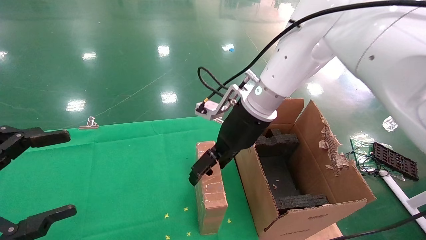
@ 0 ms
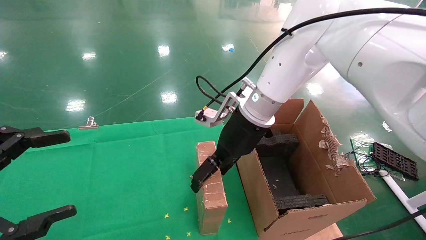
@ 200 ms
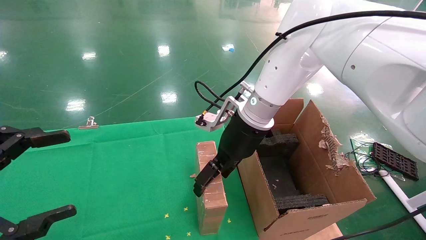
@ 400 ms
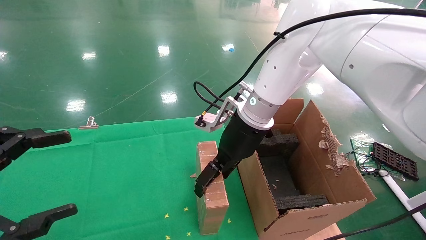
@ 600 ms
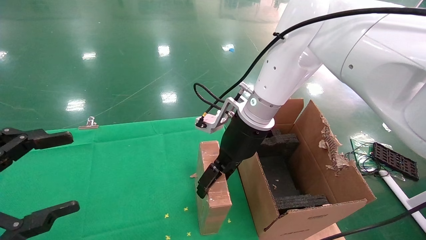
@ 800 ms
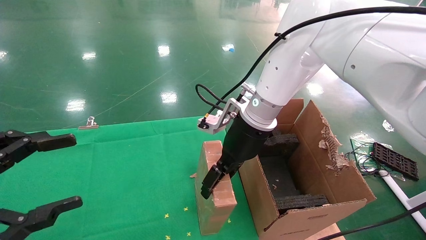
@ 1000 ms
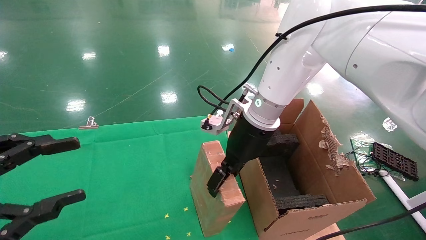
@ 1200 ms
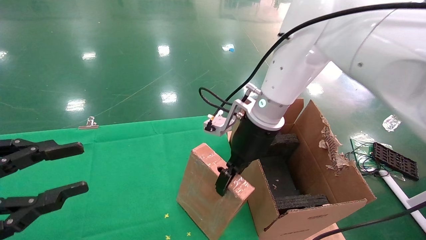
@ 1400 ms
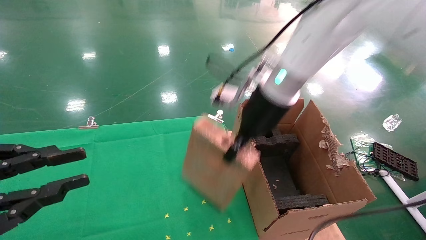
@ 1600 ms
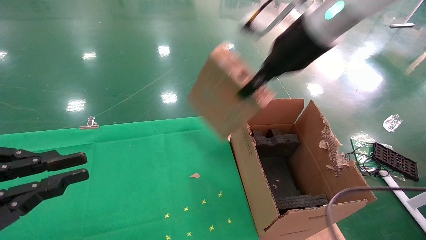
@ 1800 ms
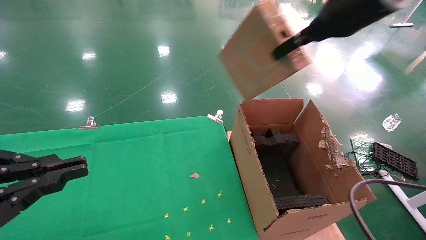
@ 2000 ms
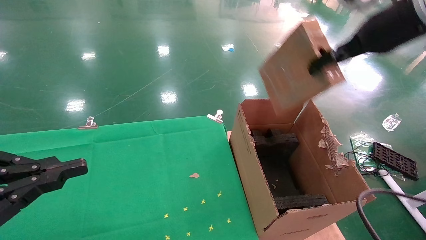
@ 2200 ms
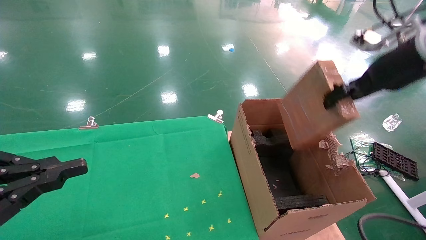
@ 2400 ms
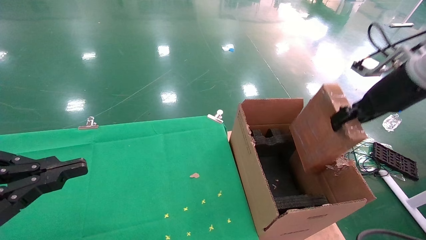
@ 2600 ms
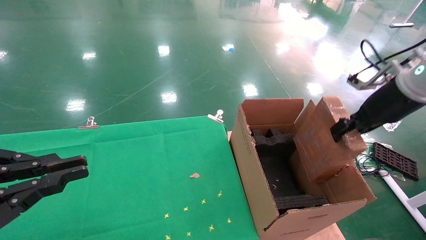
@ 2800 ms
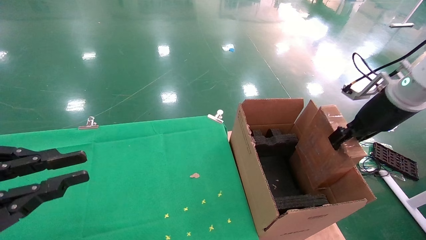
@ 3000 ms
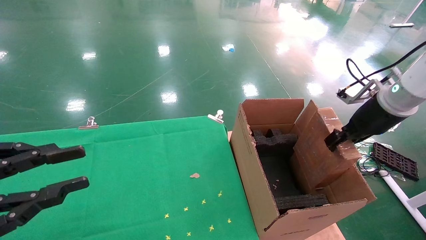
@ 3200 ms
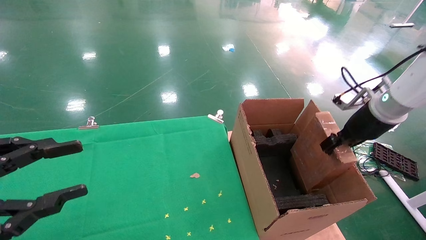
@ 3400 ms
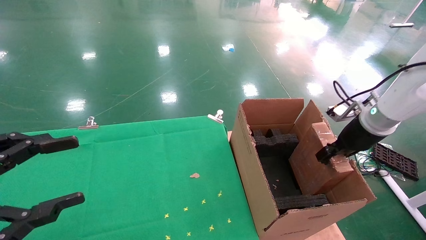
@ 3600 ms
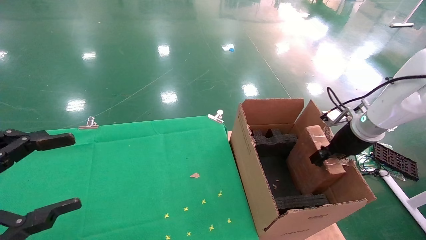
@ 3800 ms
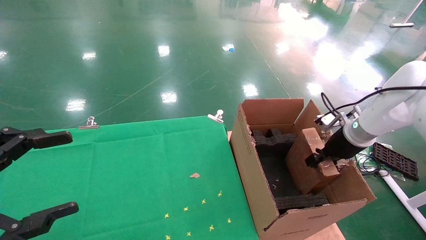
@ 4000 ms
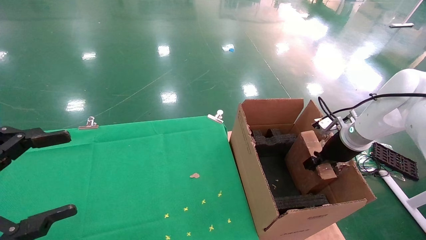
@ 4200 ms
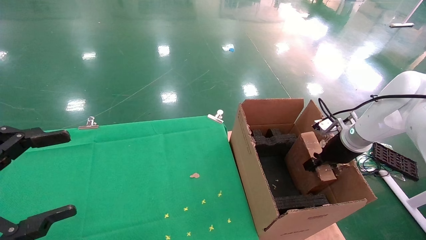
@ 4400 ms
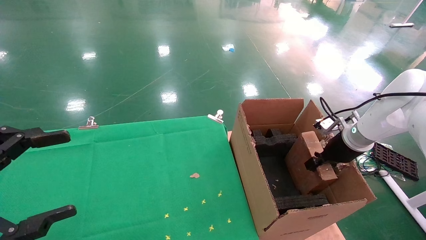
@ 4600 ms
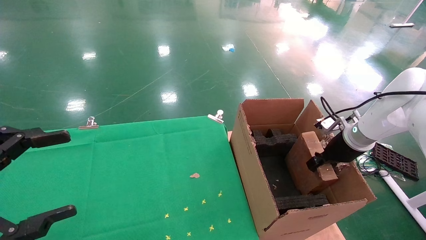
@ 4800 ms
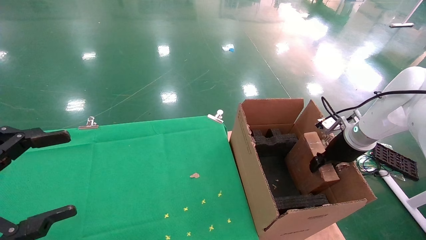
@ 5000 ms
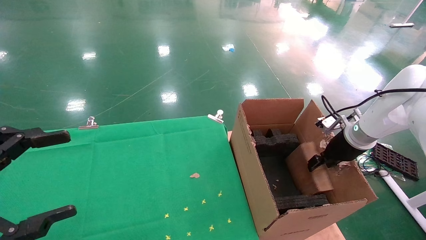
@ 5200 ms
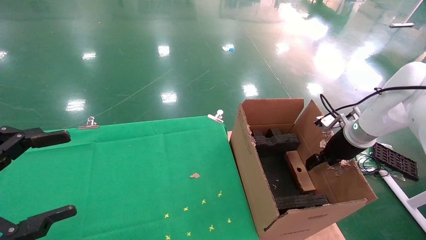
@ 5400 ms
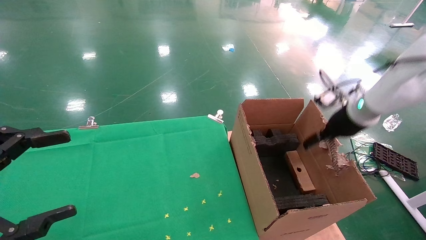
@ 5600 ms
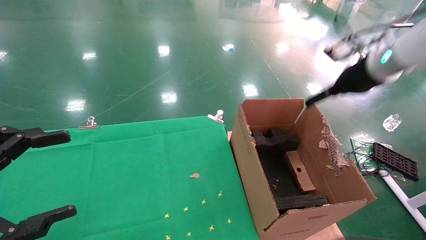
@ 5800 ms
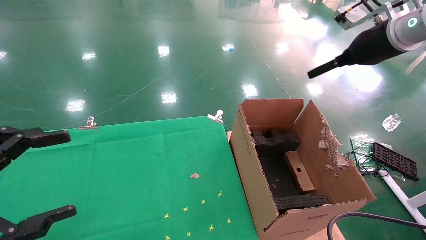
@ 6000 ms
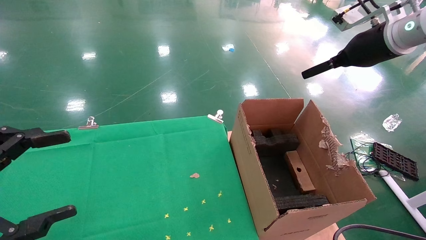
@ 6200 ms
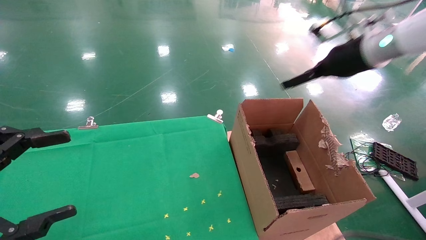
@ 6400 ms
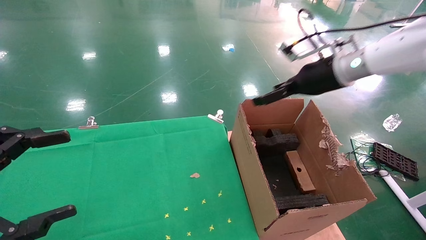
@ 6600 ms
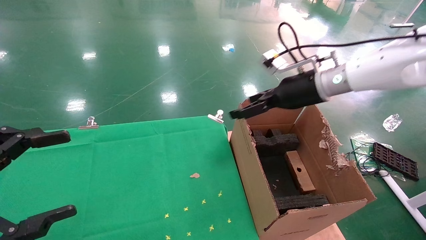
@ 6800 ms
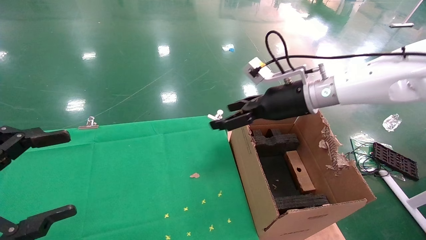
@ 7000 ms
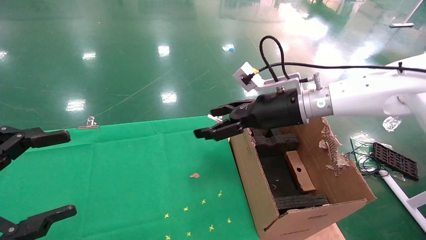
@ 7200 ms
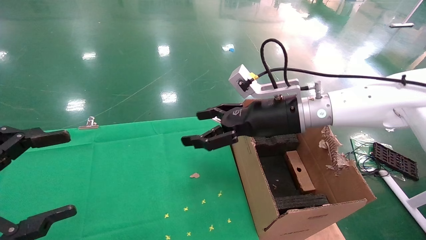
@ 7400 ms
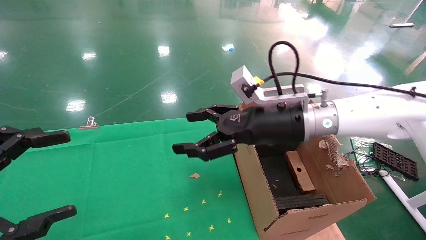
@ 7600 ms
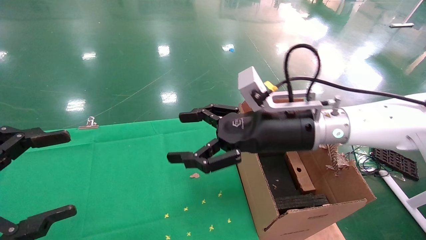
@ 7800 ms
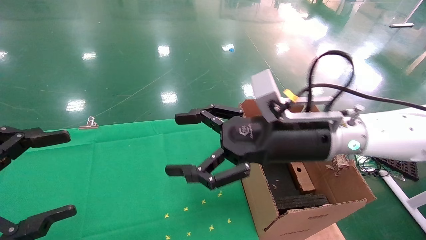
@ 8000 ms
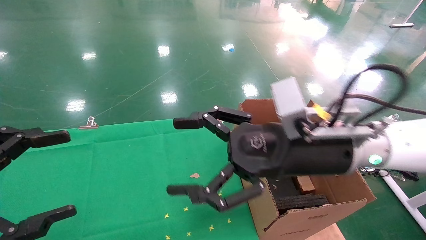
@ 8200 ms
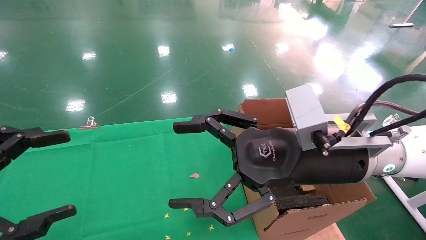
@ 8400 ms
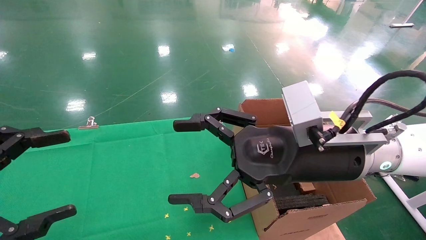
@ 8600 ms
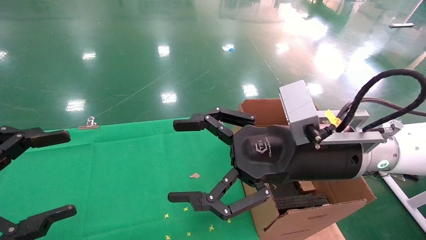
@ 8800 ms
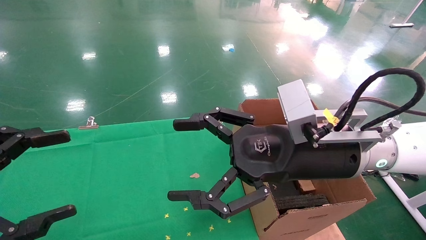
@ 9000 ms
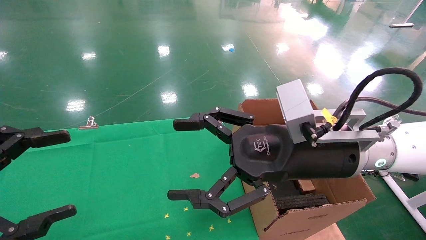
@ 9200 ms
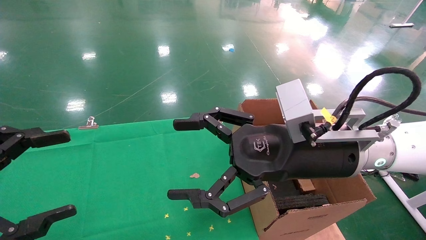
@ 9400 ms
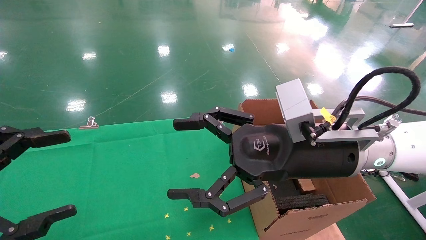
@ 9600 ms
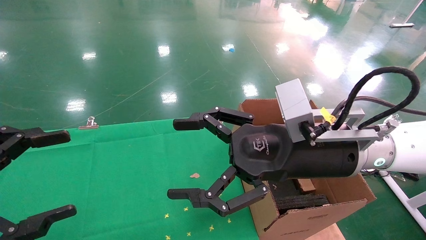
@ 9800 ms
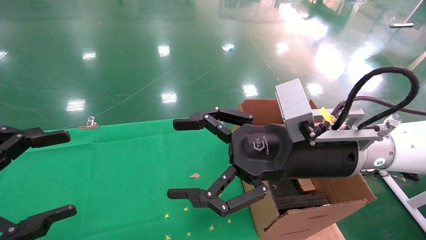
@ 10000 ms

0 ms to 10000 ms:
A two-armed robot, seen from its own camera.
Task of the whole recording: using a robotic arm to pick up a cardboard box and palace it the carton.
Step, 1400 ms to 5400 ms: Place the mouse and the power cord paper box into the container.
0 ms to 1400 ms: The right gripper closes its fingers. The left gripper closes its fingers.
1400 ms to 2800 ms: The left gripper closes its fingers. Meanwhile the right gripper moves to the right, about 25 cm.
2800 ms to 4200 ms: The left gripper opens up, while the right gripper moves downward and forward, approximately 15 cm.
4200 ms to 5800 ms: The right gripper shifts some 15 cm upward, and opens.
5800 ms to 7200 ms: The right gripper travels to the left by some 20 cm.
7200 ms to 8600 ms: The right gripper heads backward, covering approximately 15 cm.
8600 ms to 10000 ms: Both grippers stay about where they are.

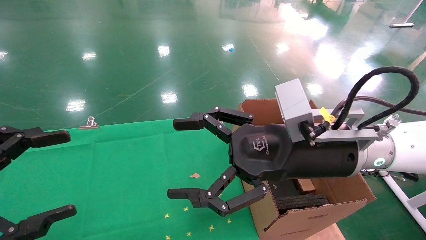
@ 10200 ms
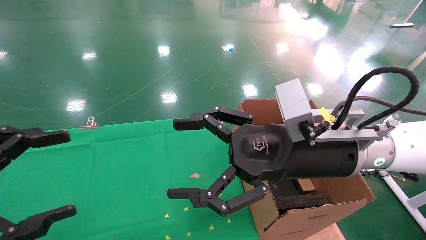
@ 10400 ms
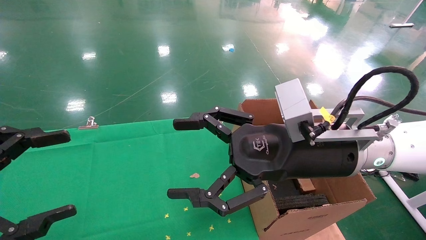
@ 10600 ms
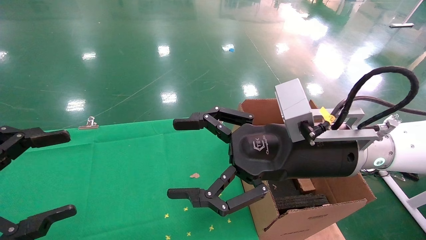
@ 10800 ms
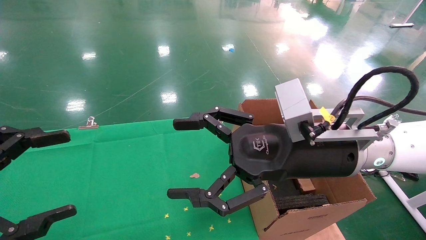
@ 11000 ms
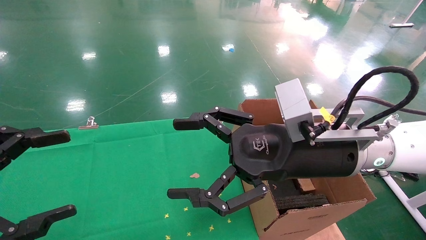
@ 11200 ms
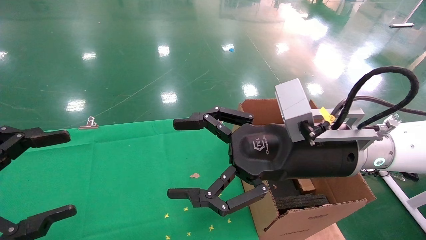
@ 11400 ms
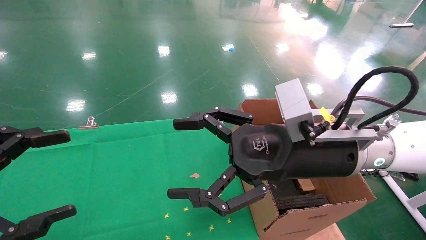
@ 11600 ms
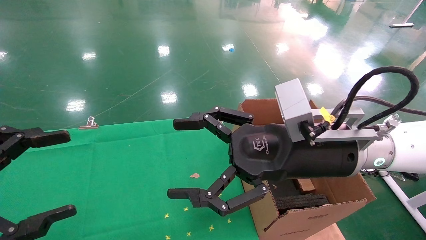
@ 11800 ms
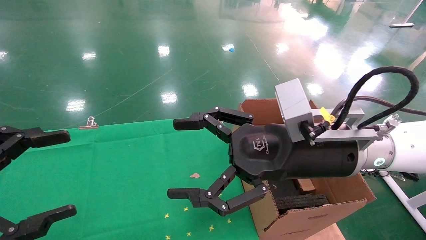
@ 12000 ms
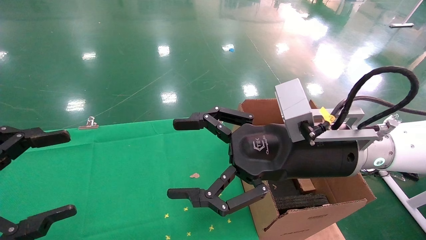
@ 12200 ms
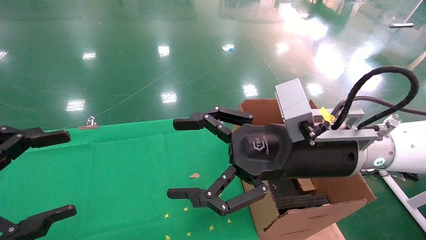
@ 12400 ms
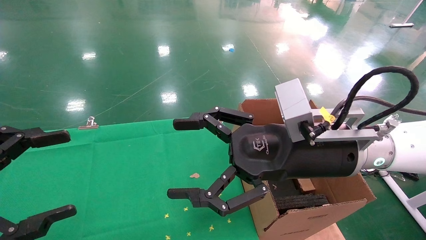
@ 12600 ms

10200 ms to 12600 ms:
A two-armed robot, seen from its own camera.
Task of the whole recording: using a robotic arm to pick up a cardboard box and palace it the carton.
10200 ms to 12600 ms: Both grippers stay about where they are.
